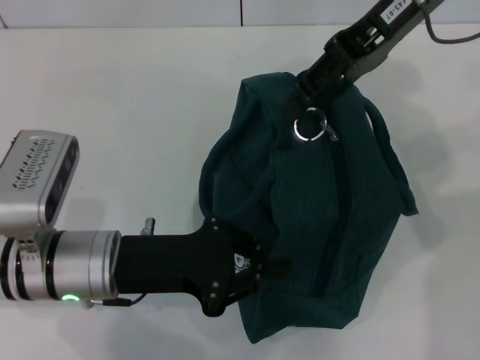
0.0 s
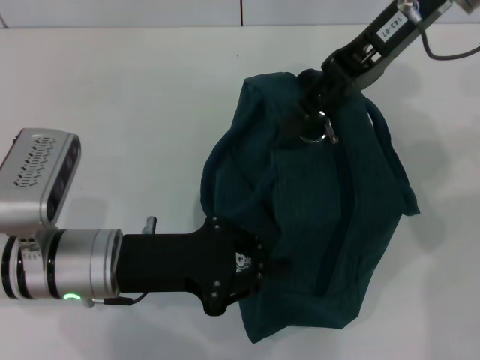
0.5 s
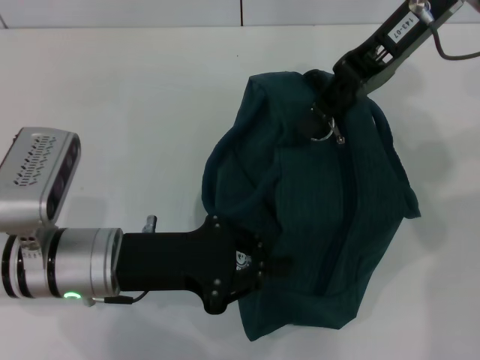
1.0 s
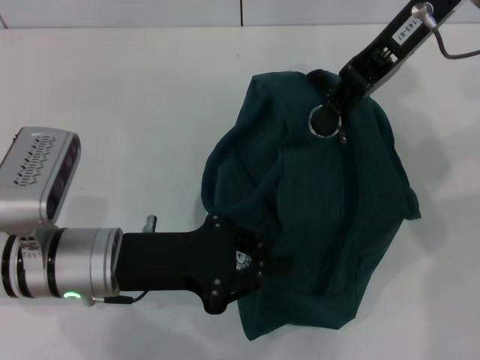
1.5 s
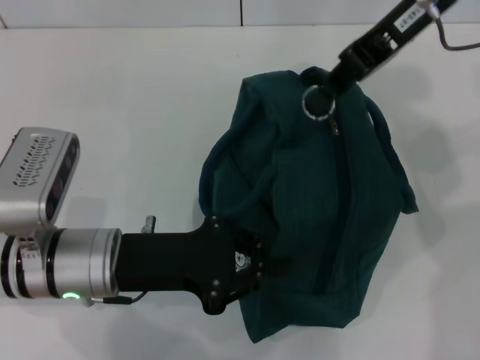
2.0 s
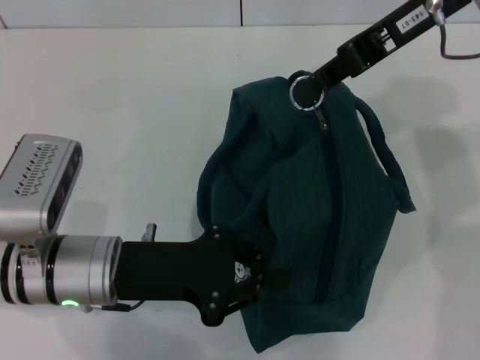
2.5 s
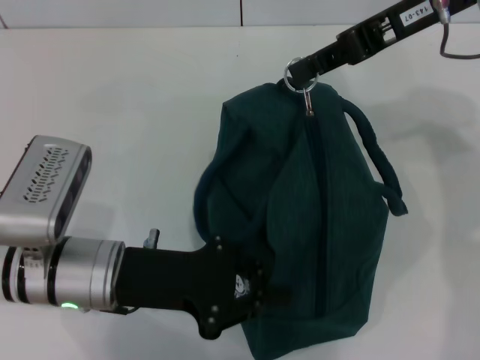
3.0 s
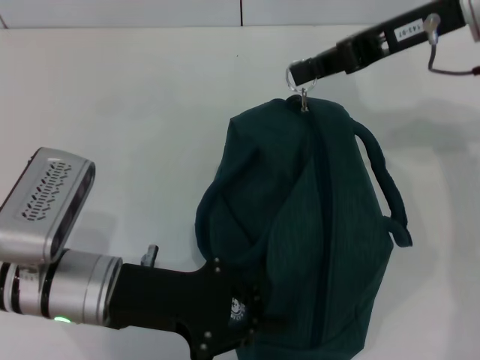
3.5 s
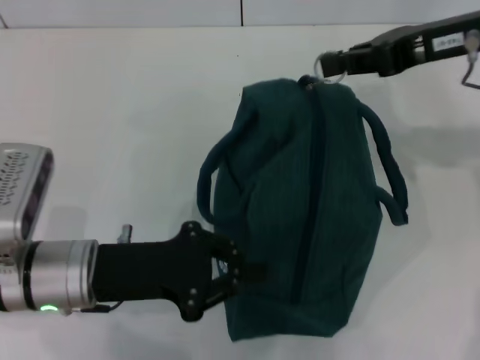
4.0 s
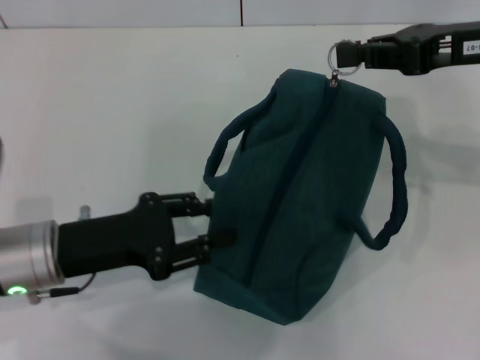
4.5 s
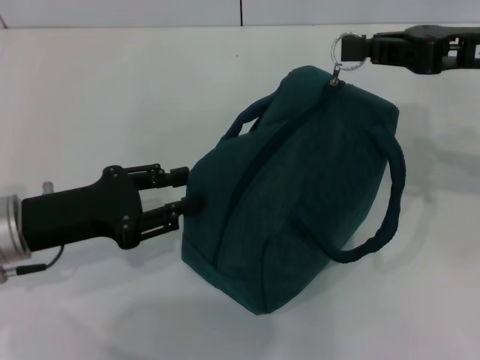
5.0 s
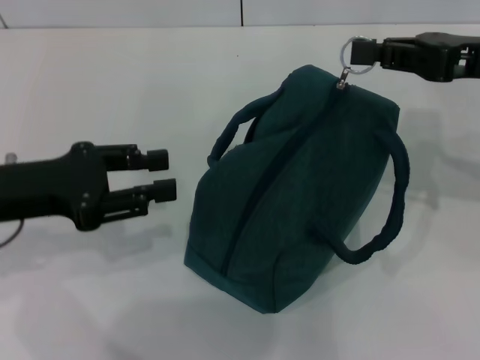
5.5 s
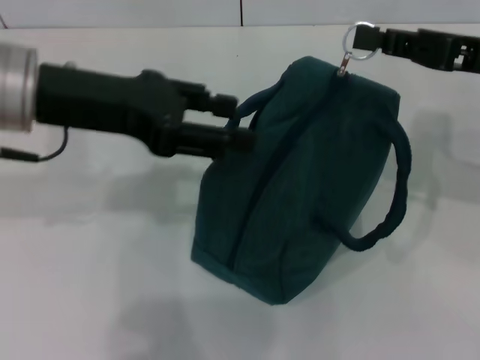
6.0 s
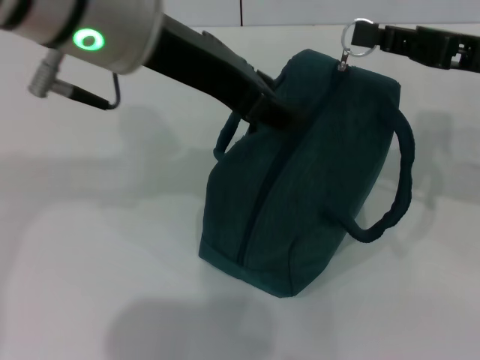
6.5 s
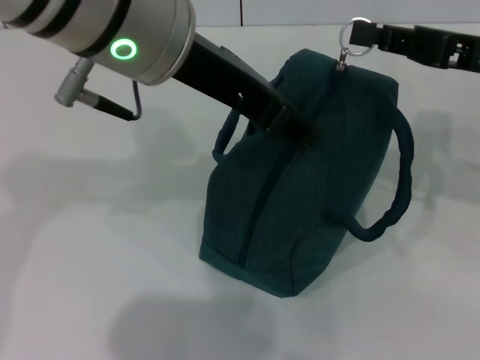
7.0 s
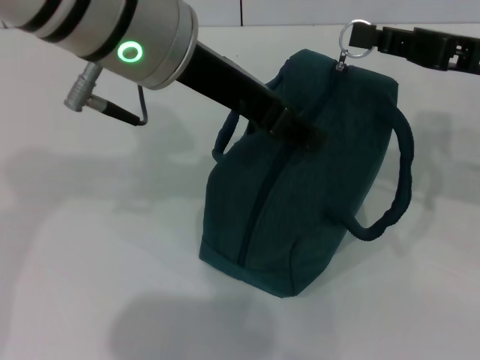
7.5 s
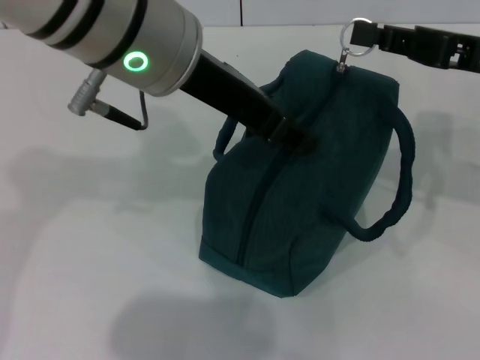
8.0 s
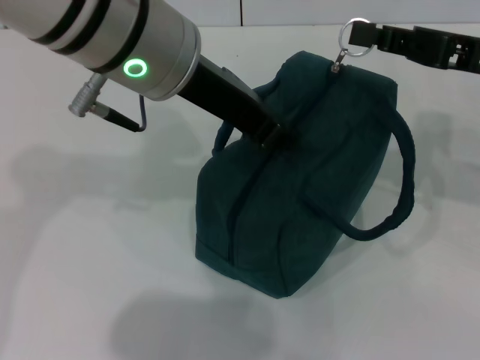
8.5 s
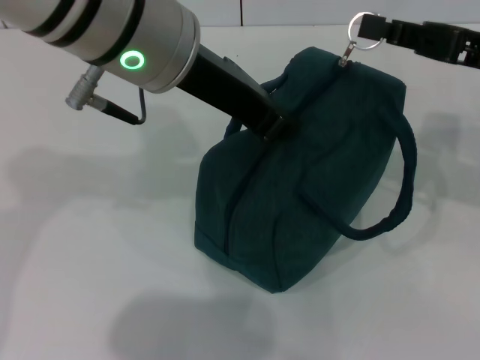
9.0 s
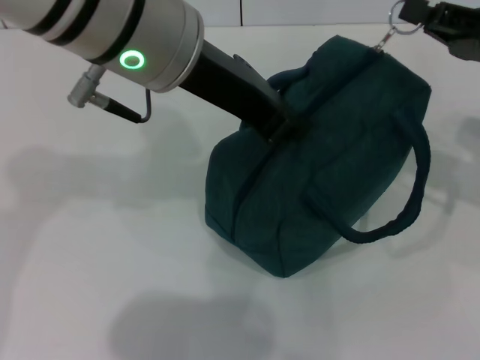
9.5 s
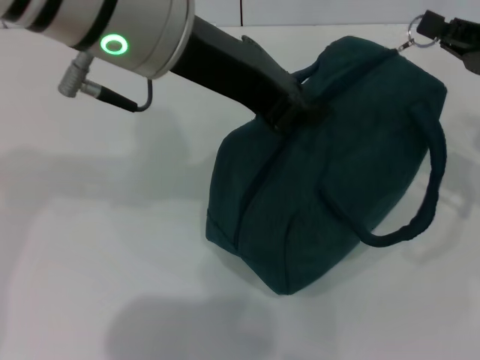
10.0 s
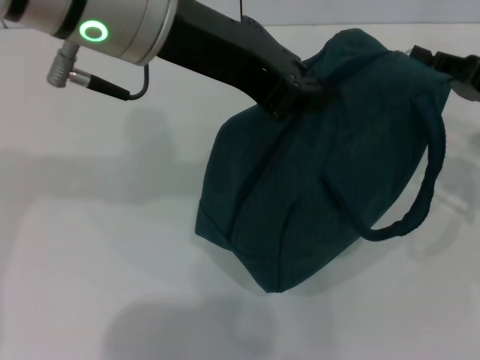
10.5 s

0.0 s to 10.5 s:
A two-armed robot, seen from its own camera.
0.0 to 2.0 s: The right gripper closes its fingers.
2.0 to 4.0 s: The right gripper is displaced to the right and downward by some 10 cm.
4.0 to 6.5 s: The left gripper heads upward, covering roughly 25 cm, and opens its fingers; the right gripper moves some 5 cm.
6.5 to 8.5 s: The left gripper closes its fingers.
8.5 to 10.5 s: The right gripper goes approximately 5 cm downward.

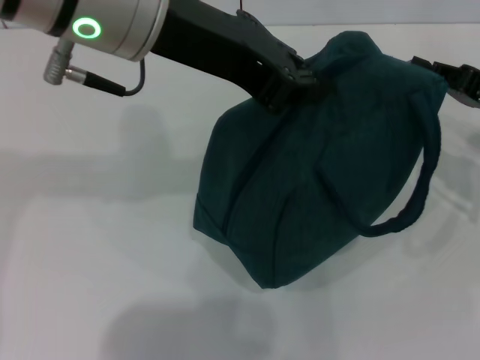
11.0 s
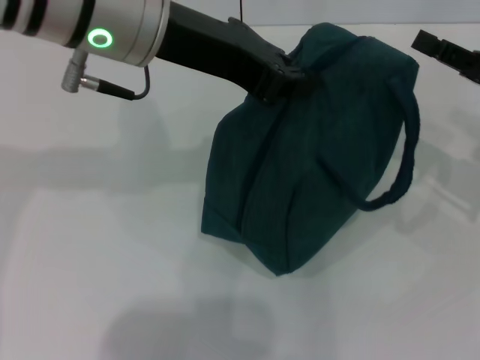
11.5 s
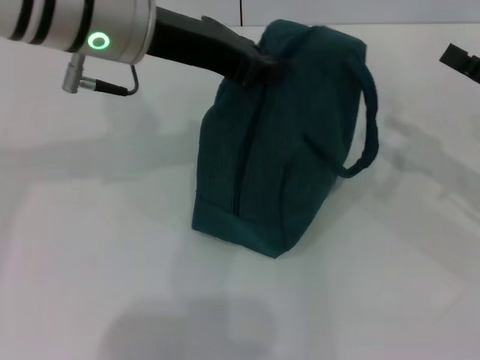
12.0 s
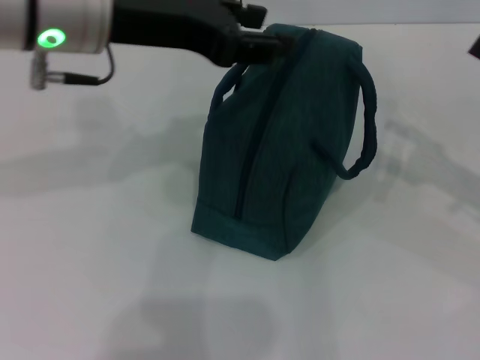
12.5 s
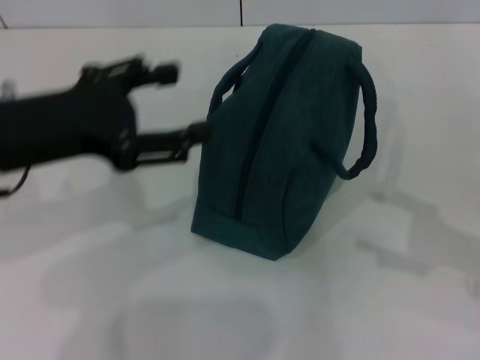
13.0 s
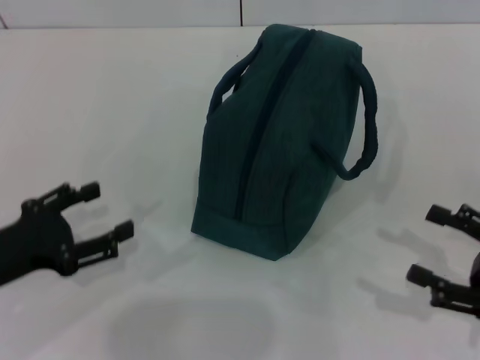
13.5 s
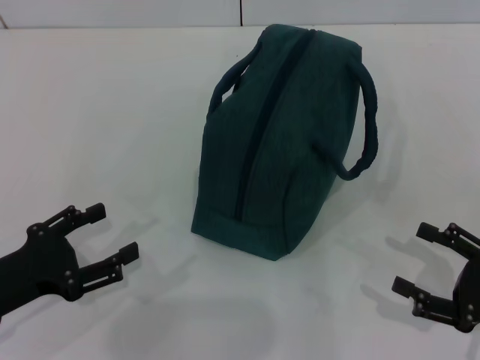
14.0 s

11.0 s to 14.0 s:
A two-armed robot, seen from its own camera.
Step, 11.5 to 12.0 s: Hold the lunch bag with your left hand.
11.0 to 12.5 s: The left gripper ends up some 5 cm from where it was, and opens up, while the right gripper travels backward by roughly 5 cm, and opens up.
12.5 to 14.0 s: The right gripper is displaced backward and downward by about 15 cm. Meanwhile the left gripper goes some 30 cm downward, backward and to the left, and opens up.

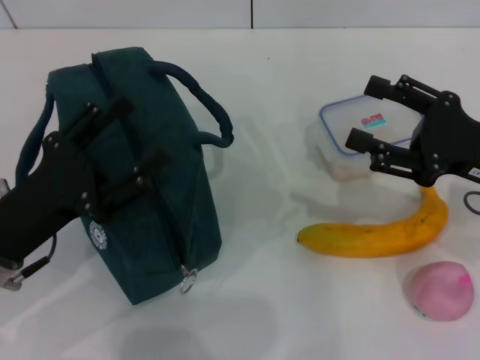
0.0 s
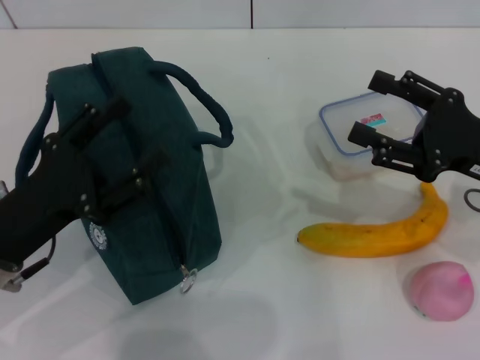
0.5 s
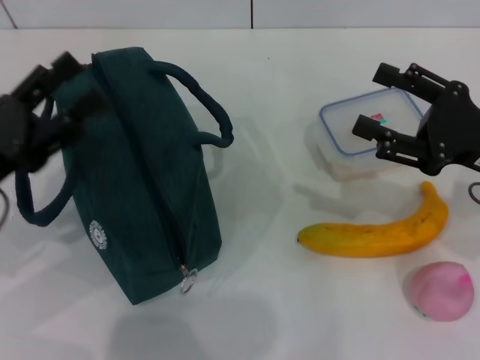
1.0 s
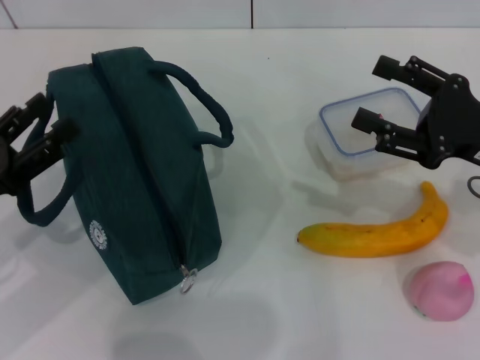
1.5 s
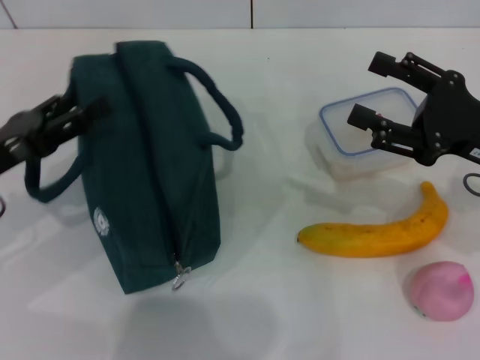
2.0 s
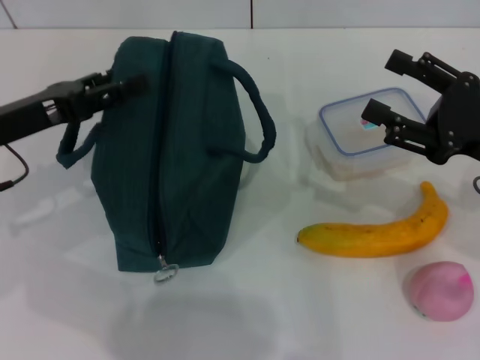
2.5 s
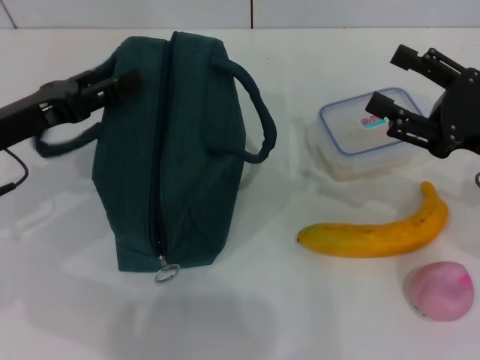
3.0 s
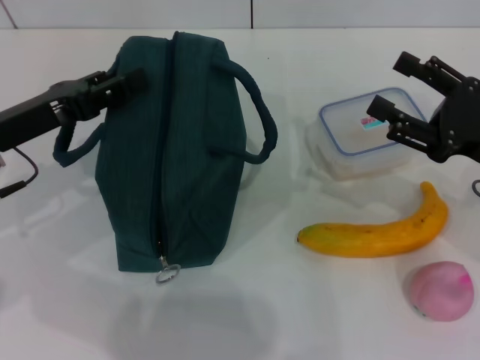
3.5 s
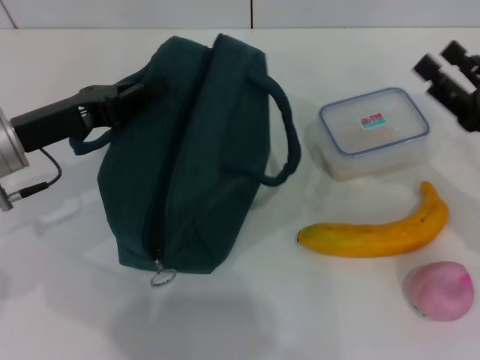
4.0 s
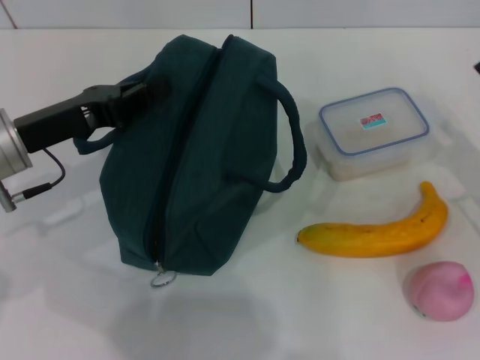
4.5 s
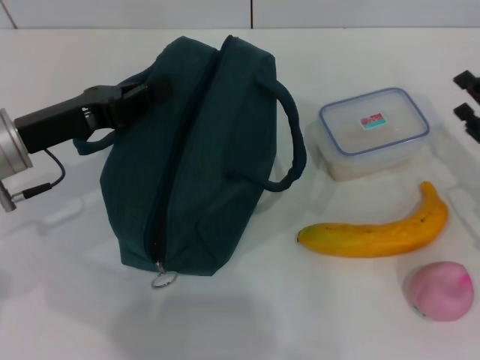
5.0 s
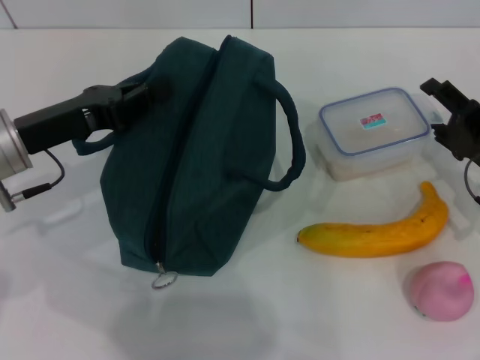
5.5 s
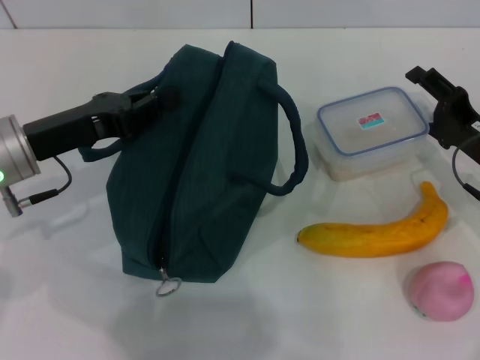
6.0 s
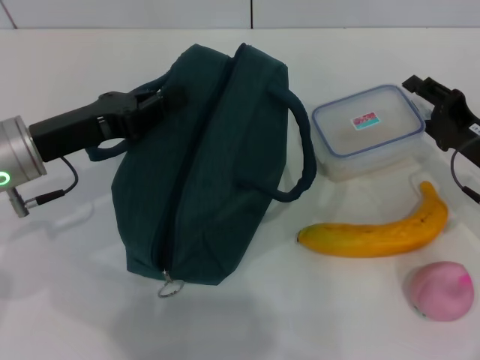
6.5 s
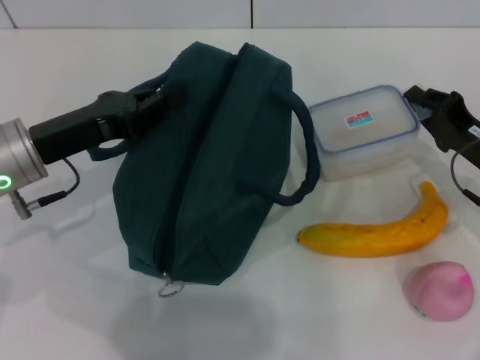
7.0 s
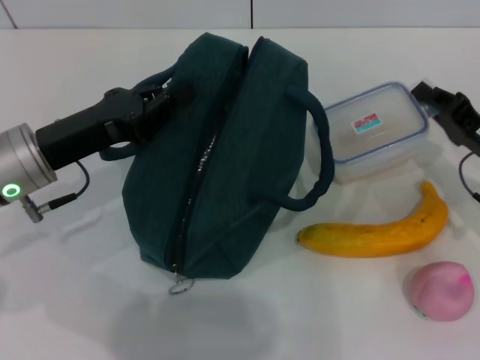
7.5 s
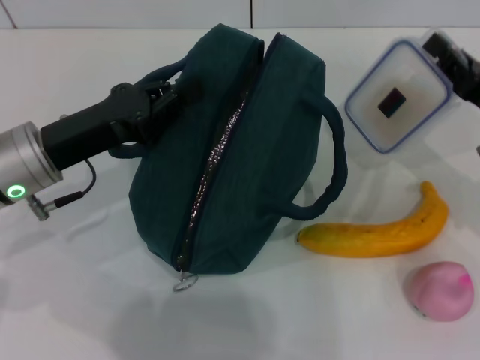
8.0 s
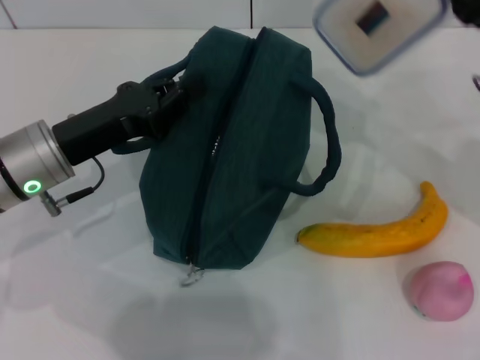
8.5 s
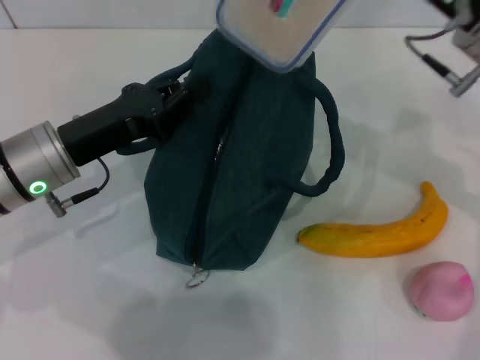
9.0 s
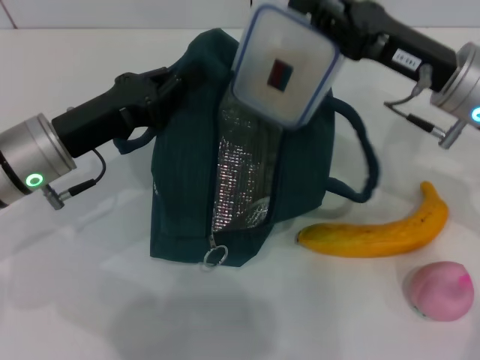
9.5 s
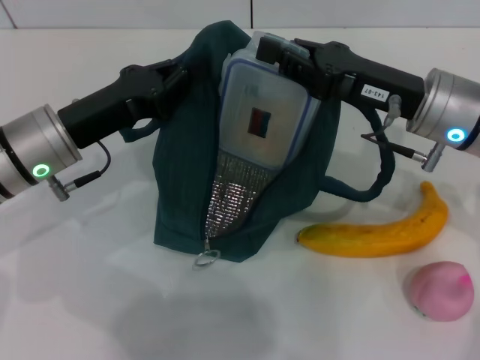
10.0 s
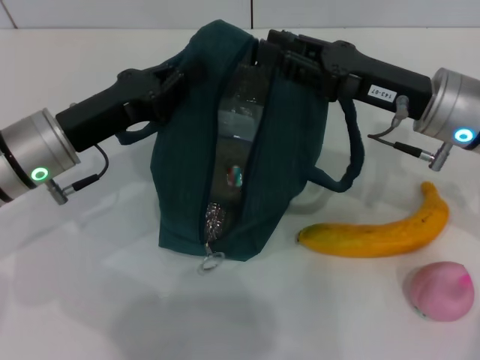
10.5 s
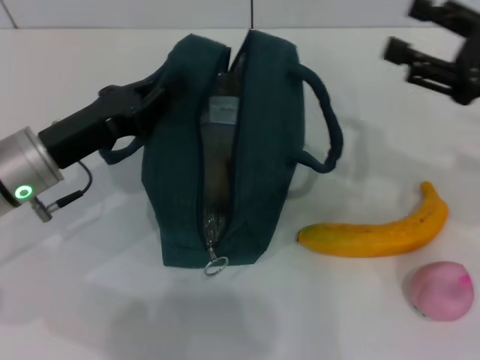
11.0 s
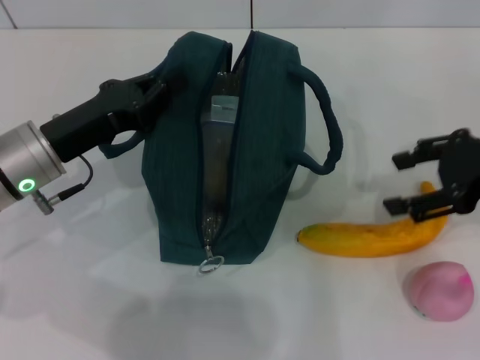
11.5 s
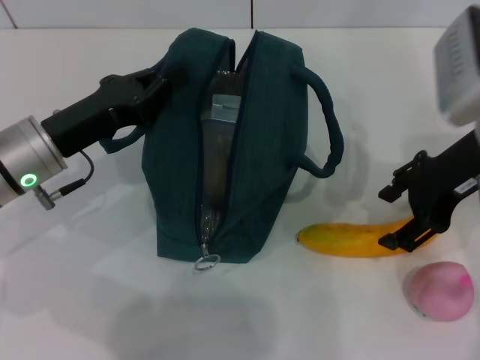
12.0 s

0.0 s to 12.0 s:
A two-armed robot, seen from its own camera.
Step, 0.0 to 4.0 s: Hold the lunch bag with your left hand.
Step, 4.5 to 7.0 s: Pick up the lunch box with your right hand.
Step, 7.5 to 10.5 s: Place the lunch box into the lunch bag with your right hand.
0.0 to 2.0 s: The left gripper heads to the left, covering roughly 5 cm.
2.0 to 4.0 s: The left gripper goes approximately 5 cm forward, and closes.
4.0 to 6.0 s: The right gripper ends up roughly 5 cm from where it was.
6.0 to 8.0 s: The right gripper closes up.
8.0 to 10.0 s: The right gripper travels to the left and upward by about 10 cm.
10.0 to 12.0 s: The right gripper moves upward, approximately 5 cm, travels to the right and back again, some 10 cm each way, and opens its fingers.
